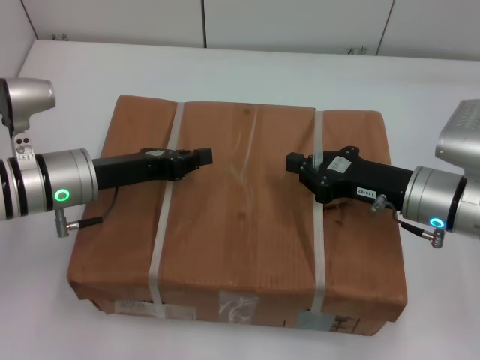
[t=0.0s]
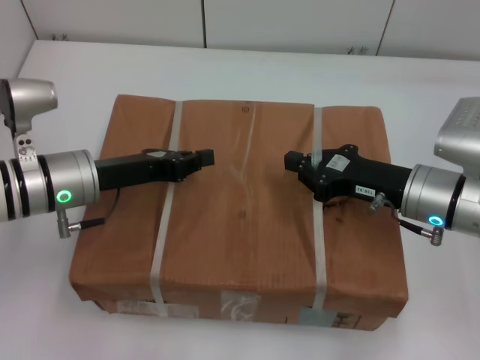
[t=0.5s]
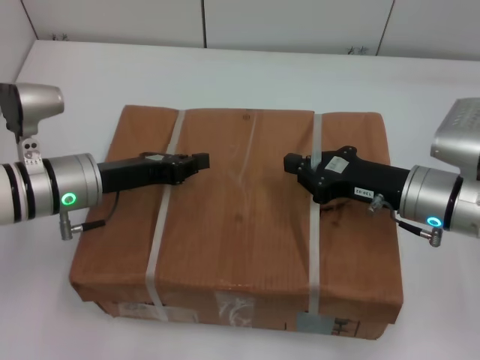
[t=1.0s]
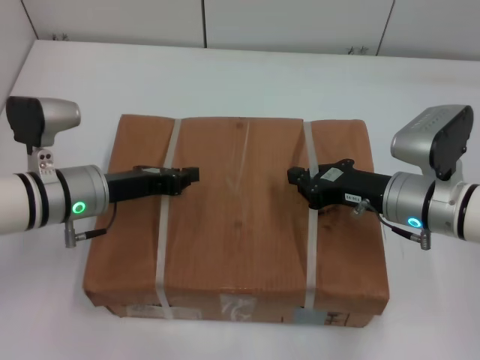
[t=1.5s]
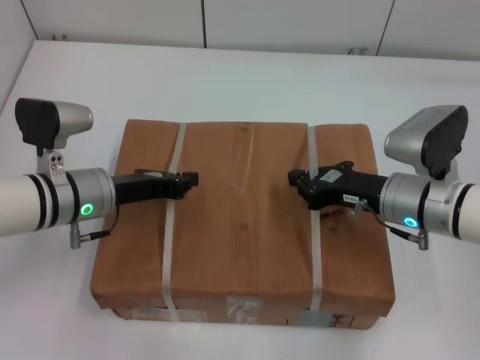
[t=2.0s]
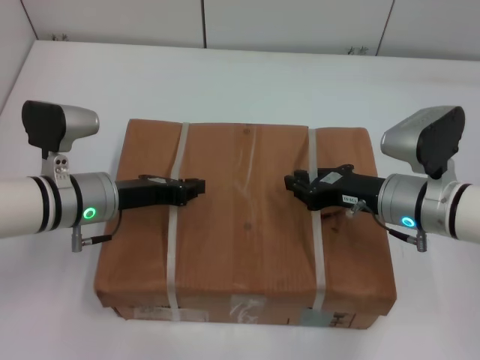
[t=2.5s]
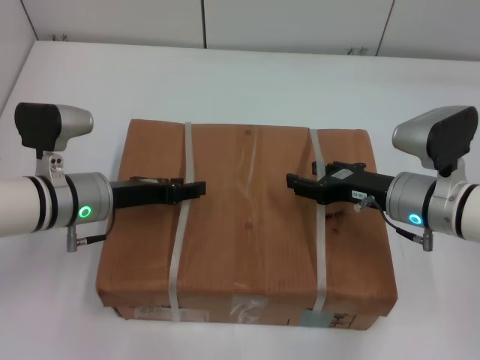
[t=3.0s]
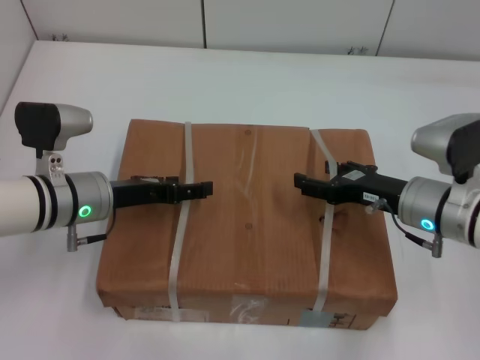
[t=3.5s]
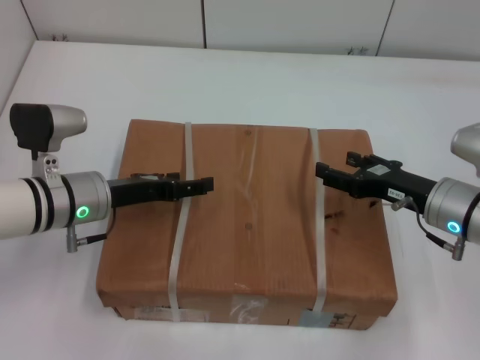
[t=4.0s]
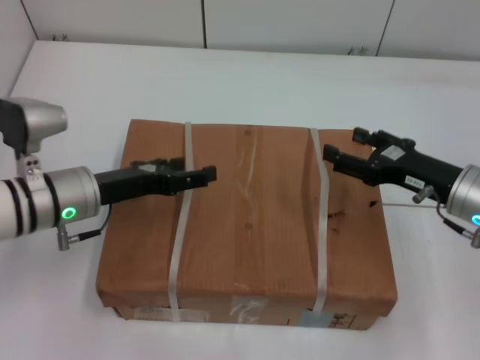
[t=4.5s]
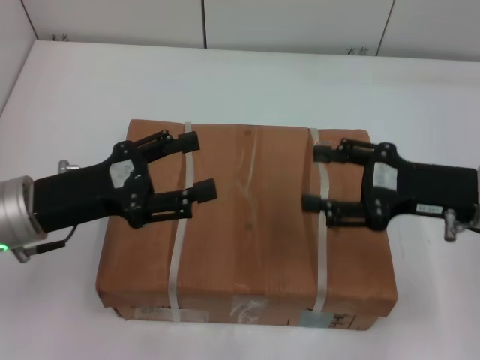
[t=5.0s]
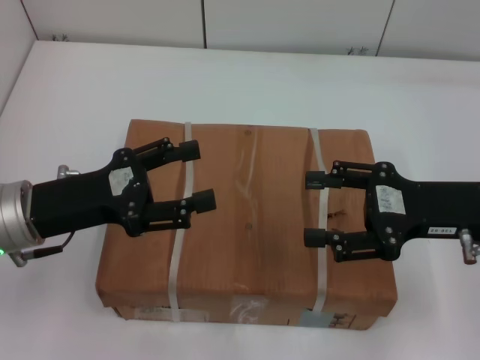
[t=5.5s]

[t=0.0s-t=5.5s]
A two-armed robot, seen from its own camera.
Task of the whole recording: place the box on the table with both arms.
Step, t=0.0s to t=1.5s: Place the box on the table with left gripper.
Step, t=0.0s to t=1.5s: Place the box on the table with right gripper.
Step, t=2.0s to t=3.5s: Loosen the box on the table with left gripper.
Step, t=2.0s to t=3.5s: Loosen the box on the table with right gripper.
t=2.0s to t=3.5s: The left gripper opens. Meanwhile the right gripper opens up.
t=3.5s to t=5.5s: The left gripper moves backward and upward, approximately 10 cm; the right gripper is displaced upward by some 10 cm.
